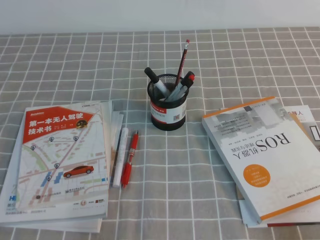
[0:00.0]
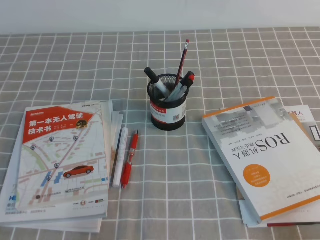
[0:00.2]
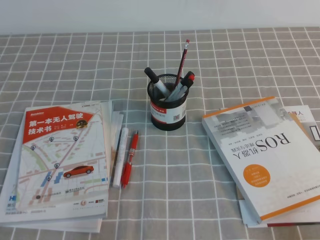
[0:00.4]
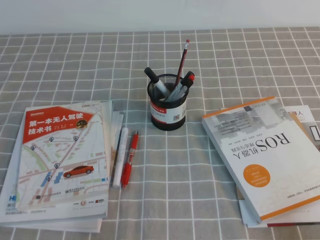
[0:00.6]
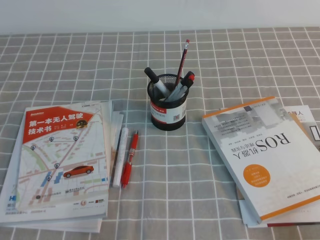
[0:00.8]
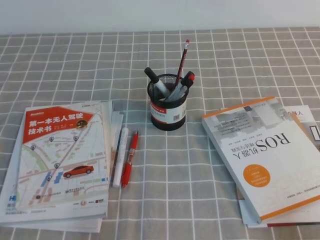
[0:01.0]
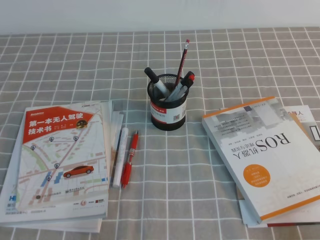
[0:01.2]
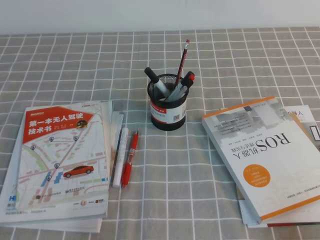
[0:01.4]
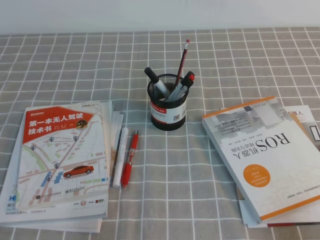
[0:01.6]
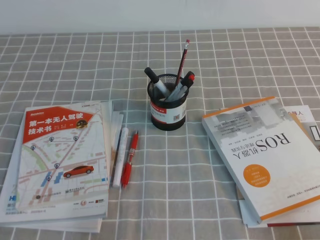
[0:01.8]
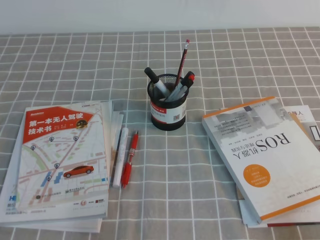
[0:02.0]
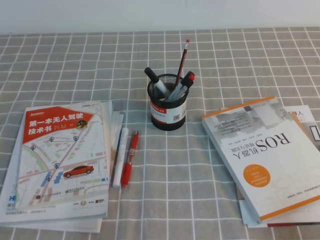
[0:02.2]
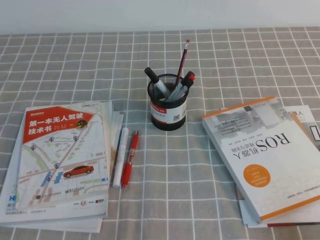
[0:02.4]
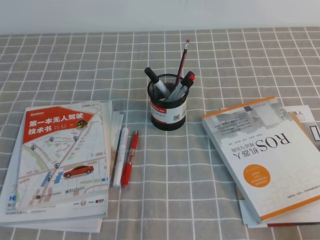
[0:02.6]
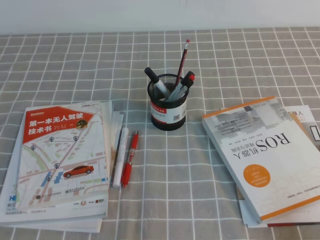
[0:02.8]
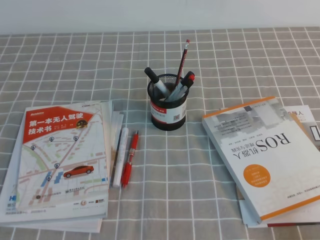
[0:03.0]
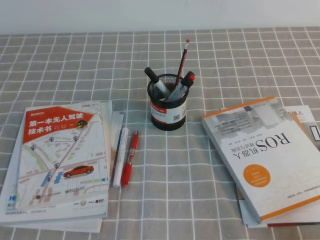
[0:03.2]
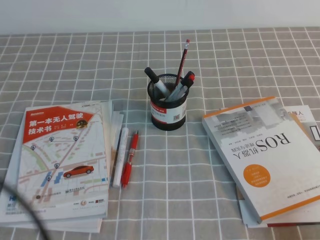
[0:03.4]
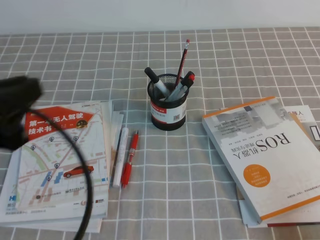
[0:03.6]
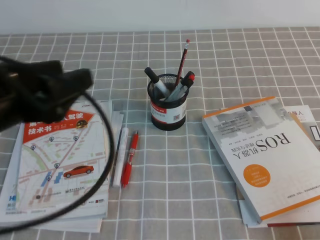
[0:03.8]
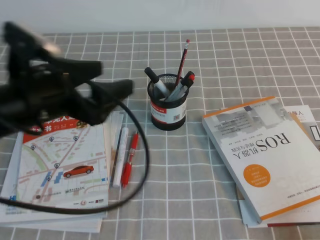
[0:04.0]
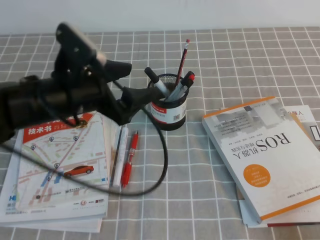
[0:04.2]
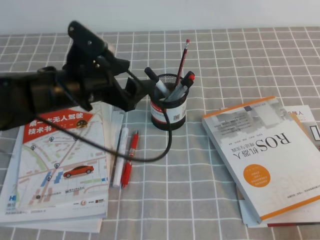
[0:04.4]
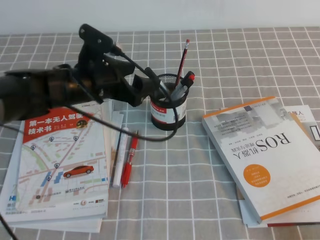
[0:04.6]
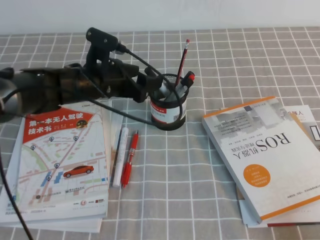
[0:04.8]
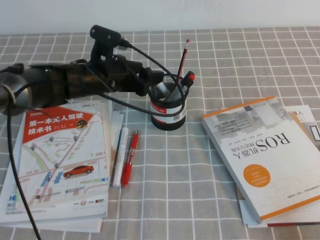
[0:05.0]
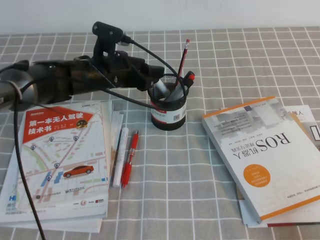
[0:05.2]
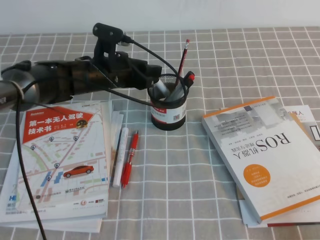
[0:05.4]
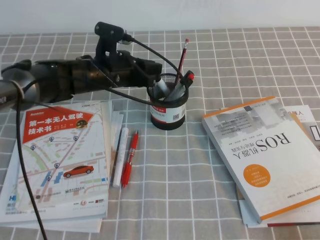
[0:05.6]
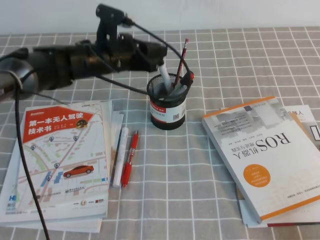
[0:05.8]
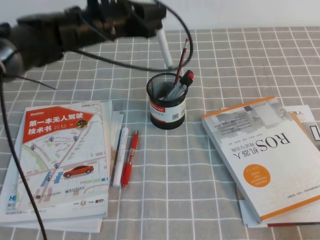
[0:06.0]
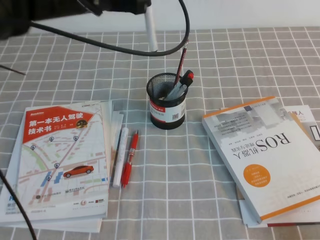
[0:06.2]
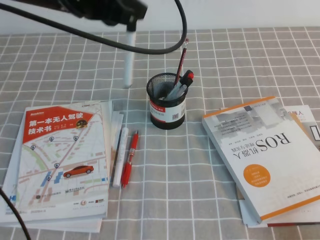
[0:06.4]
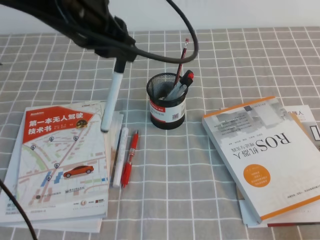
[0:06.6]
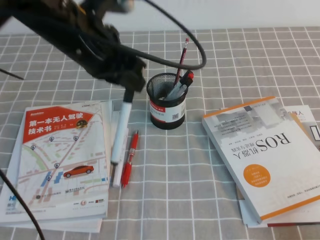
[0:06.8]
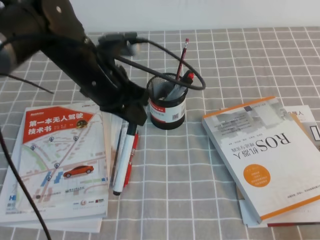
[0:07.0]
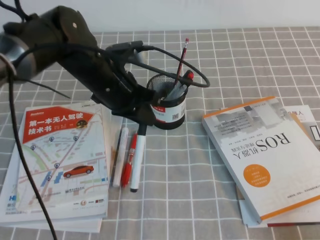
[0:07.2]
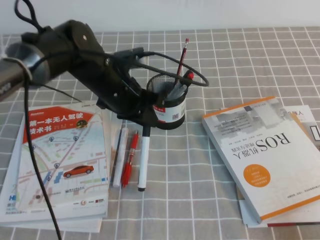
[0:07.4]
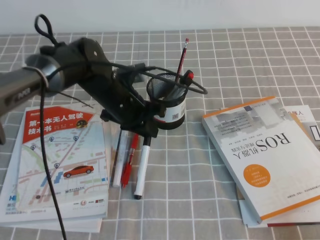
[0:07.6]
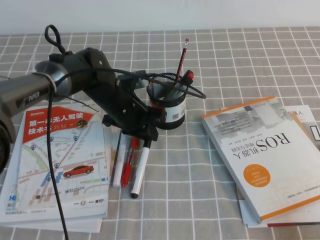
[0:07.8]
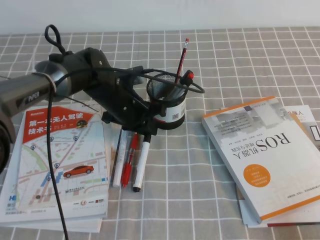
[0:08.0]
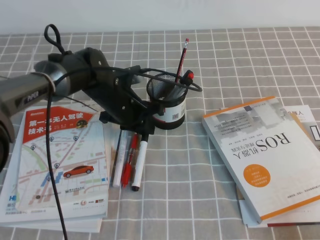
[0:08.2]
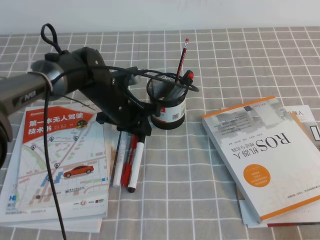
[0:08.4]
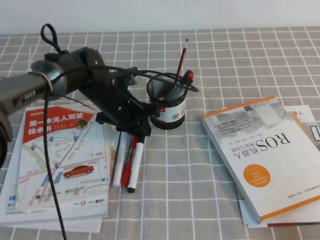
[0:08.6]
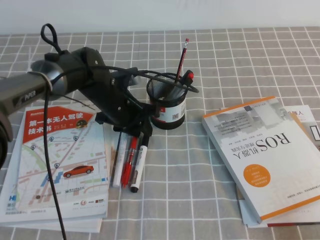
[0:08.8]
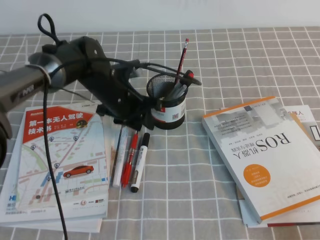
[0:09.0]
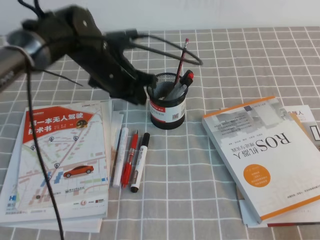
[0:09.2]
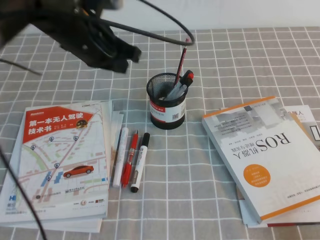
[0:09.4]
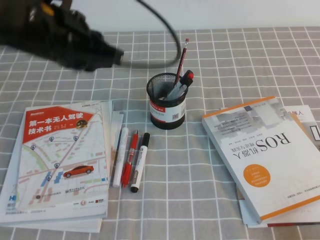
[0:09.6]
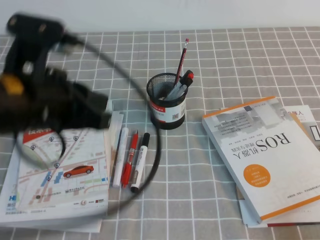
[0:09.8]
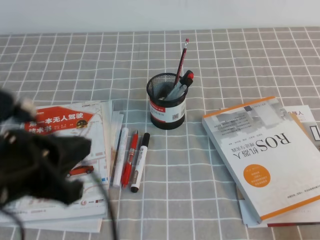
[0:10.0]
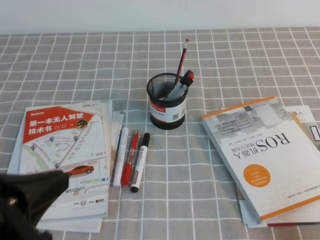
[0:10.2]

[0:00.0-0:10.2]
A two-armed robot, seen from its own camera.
0:00.0 to 0:01.4: Both grippers stay about where they are.
0:03.0 to 0:04.4: The left gripper shifts approximately 30 cm forward and to the right, and opens up.
0:04.4 to 0:05.8: The left gripper goes about 10 cm forward, and closes its fingers.
0:05.8 to 0:07.2: The left gripper goes approximately 5 cm backward, and goes upward and returns, some 15 cm each way.
0:07.2 to 0:08.8: The left gripper moves downward, roughly 10 cm.
0:08.8 to 0:10.2: The left gripper moves backward, upward and to the left, roughly 35 cm.

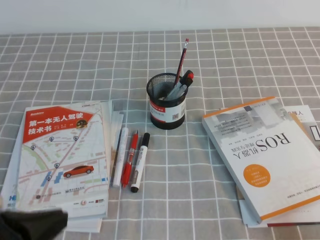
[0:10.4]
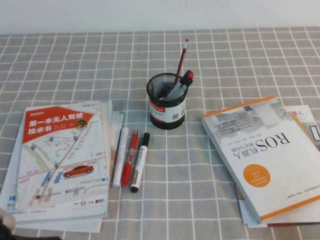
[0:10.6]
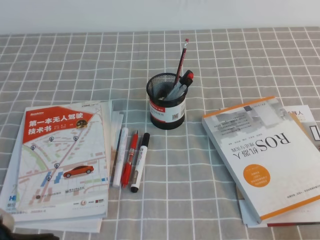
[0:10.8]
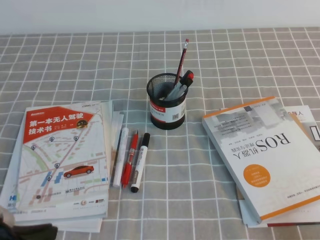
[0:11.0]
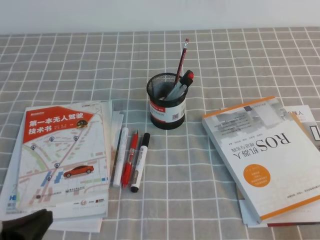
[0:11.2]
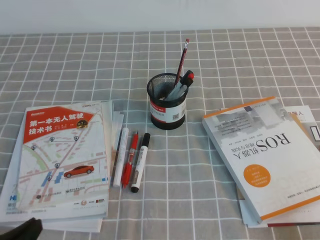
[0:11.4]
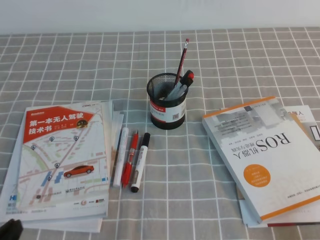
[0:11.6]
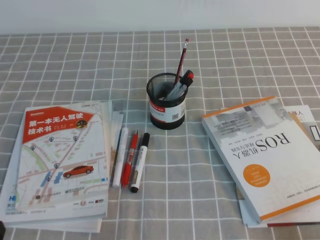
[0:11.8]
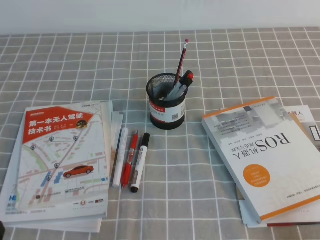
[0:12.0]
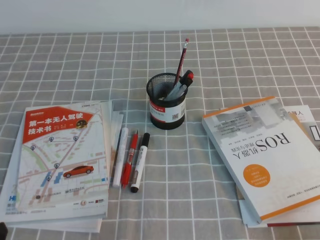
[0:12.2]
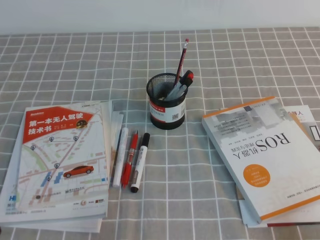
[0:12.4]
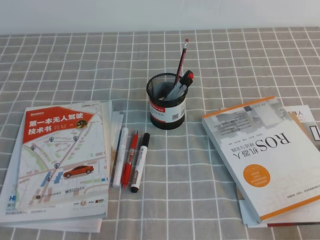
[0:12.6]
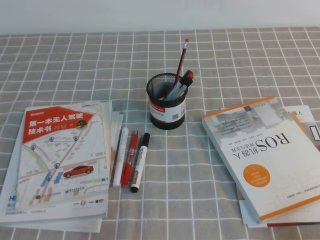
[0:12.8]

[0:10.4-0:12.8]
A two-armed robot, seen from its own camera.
Step, 0:10.4 to 0:12.8: Pick up the pen from the pen holder.
0:10.4 to 0:11.6: The left gripper goes some 10 cm downward.
